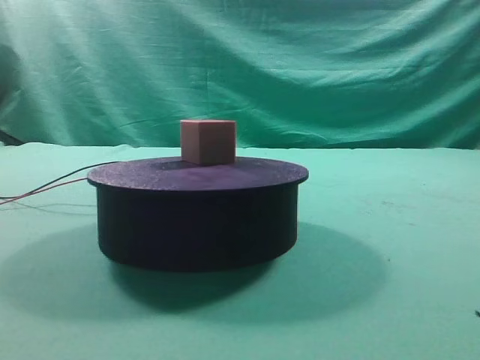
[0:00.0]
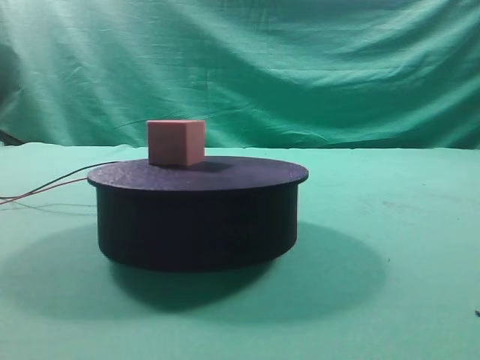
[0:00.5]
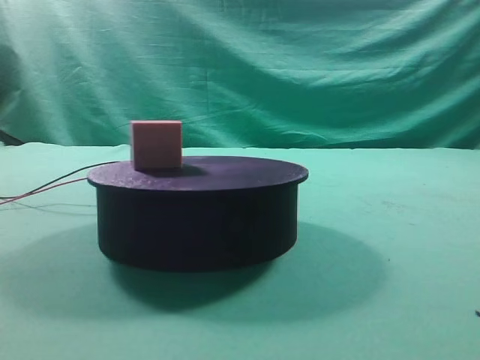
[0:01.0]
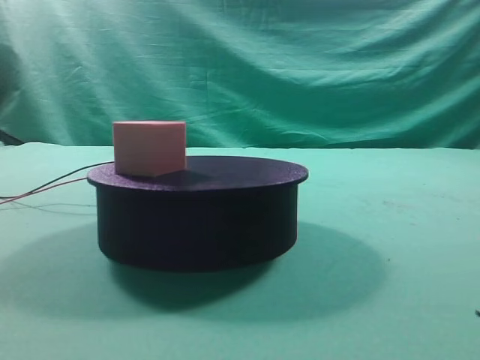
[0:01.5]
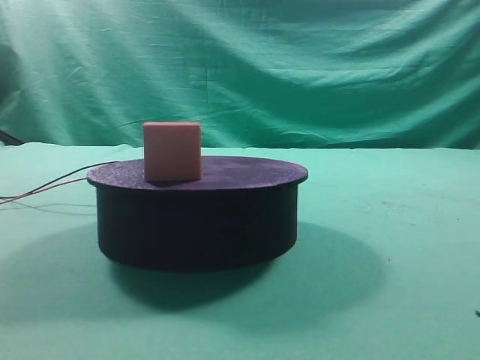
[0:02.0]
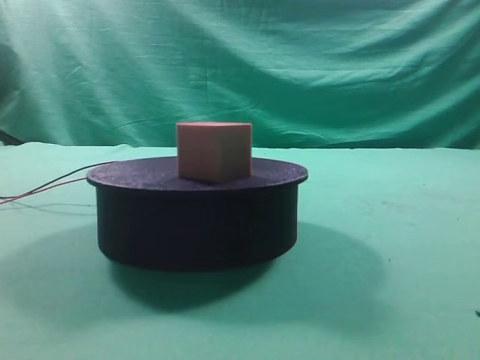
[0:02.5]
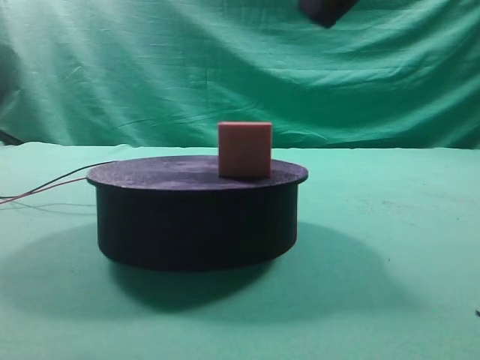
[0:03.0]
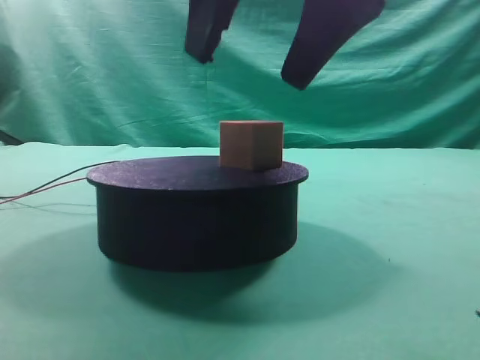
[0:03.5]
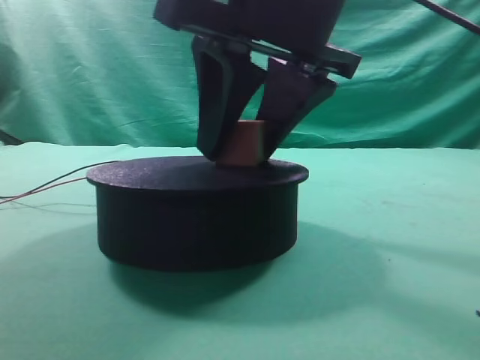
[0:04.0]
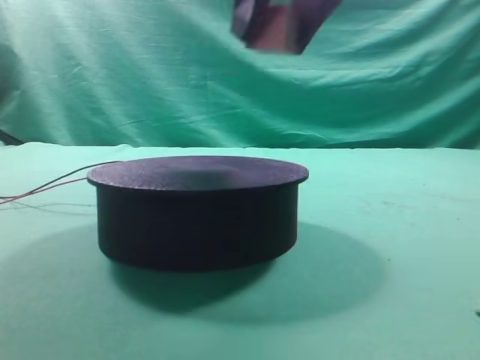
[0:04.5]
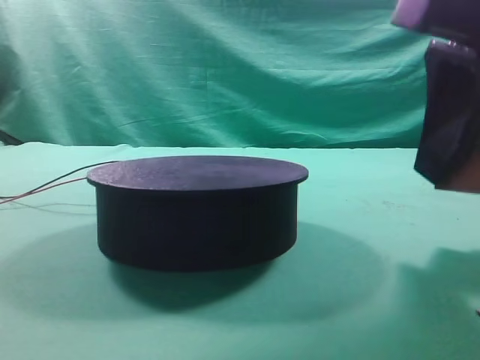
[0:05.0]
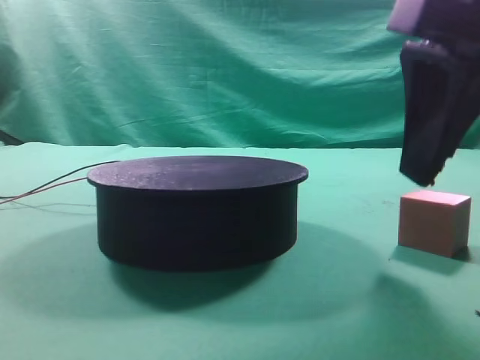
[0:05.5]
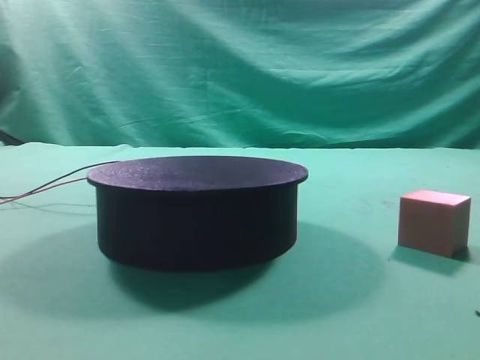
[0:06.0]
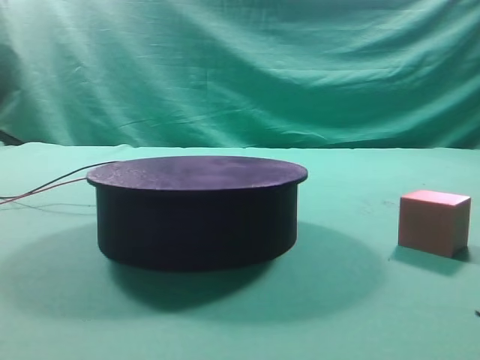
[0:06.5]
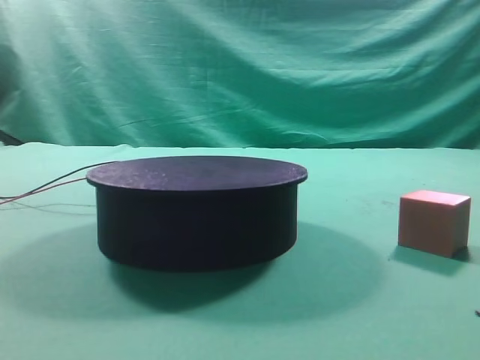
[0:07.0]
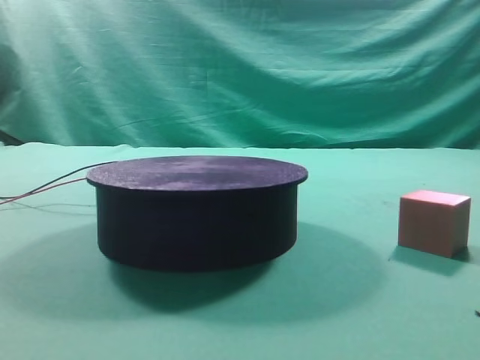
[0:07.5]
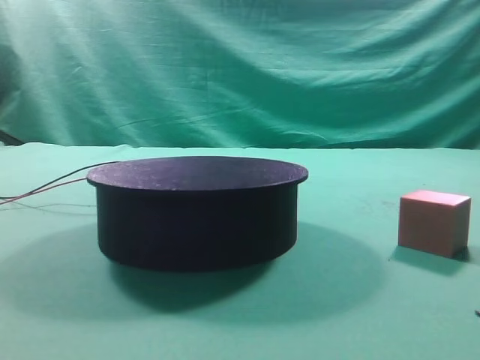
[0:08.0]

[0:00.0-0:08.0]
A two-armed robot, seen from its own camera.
Task of the whole recording: grasp the rotating cube-shaped block on the turntable and place it on the table.
Step, 0:00.0 to 0:04.0: Grasp the rotating cube-shaped block on the turntable.
Step, 0:04.5 to 0:05.5: Place the cube on the desk.

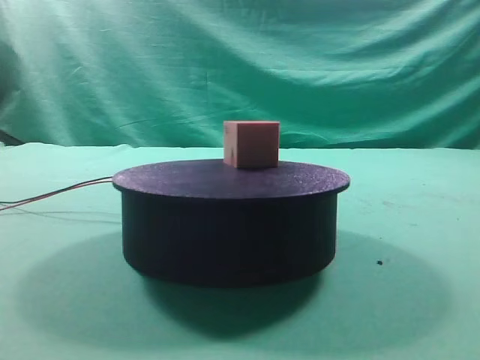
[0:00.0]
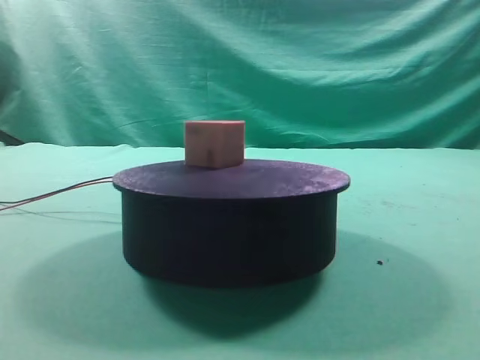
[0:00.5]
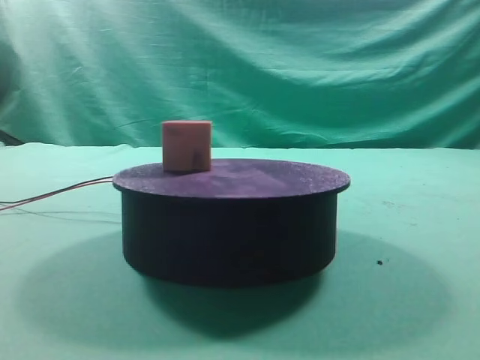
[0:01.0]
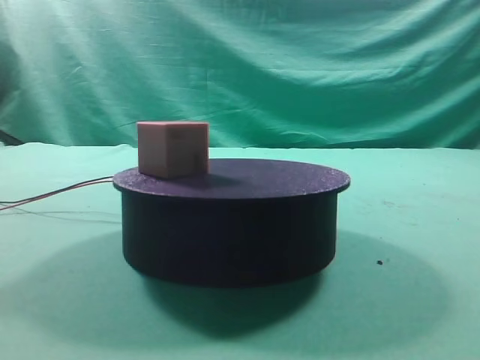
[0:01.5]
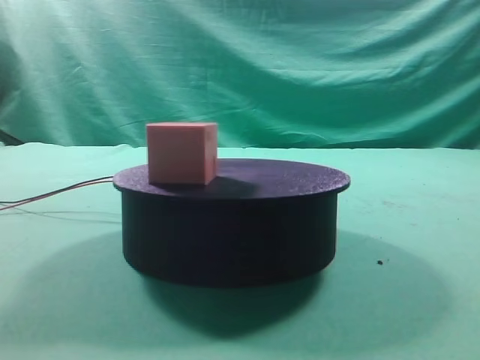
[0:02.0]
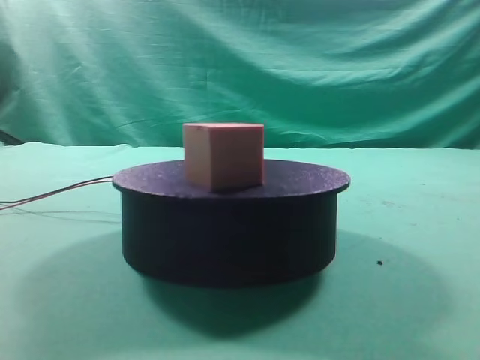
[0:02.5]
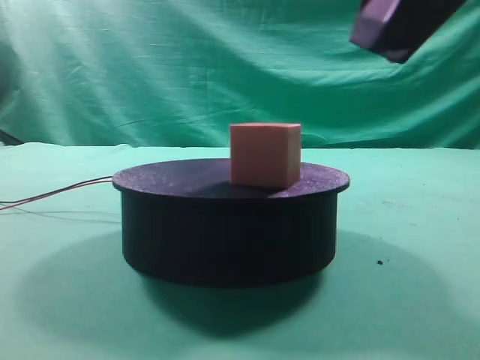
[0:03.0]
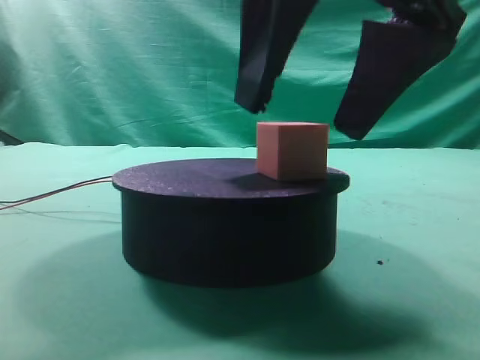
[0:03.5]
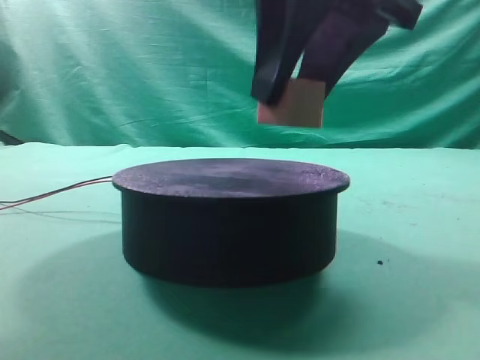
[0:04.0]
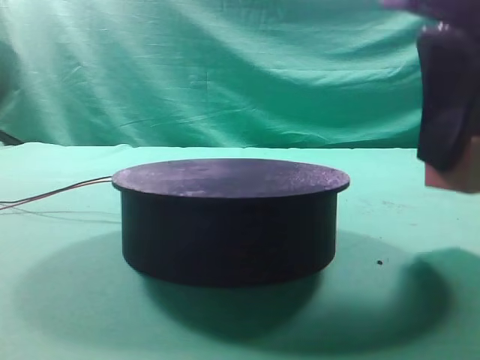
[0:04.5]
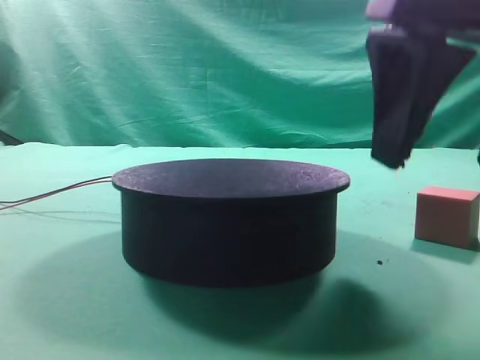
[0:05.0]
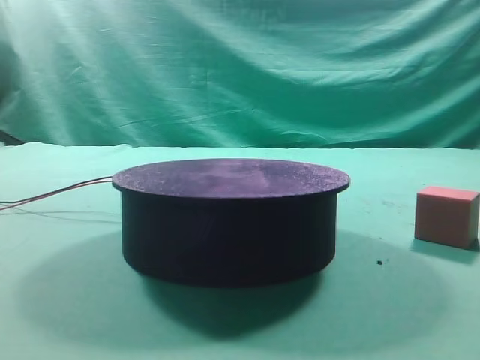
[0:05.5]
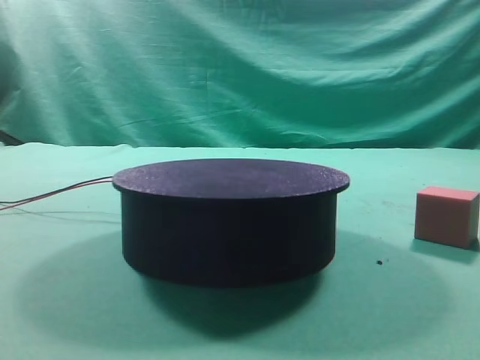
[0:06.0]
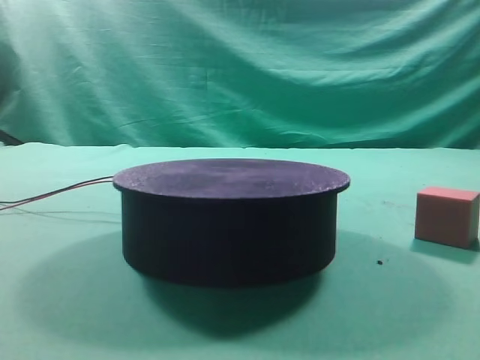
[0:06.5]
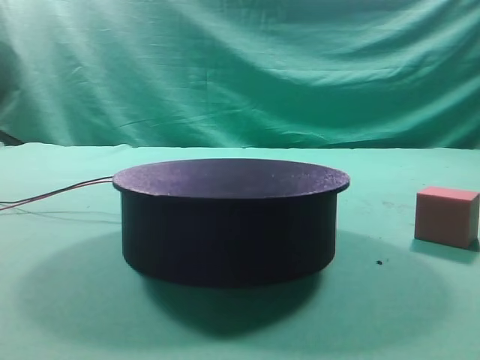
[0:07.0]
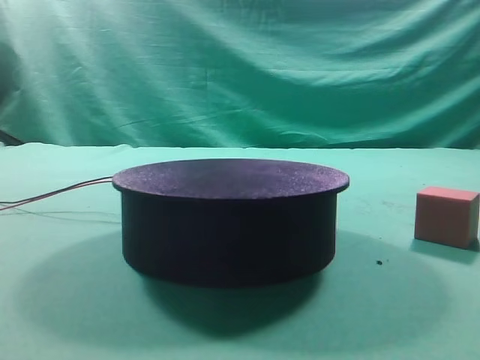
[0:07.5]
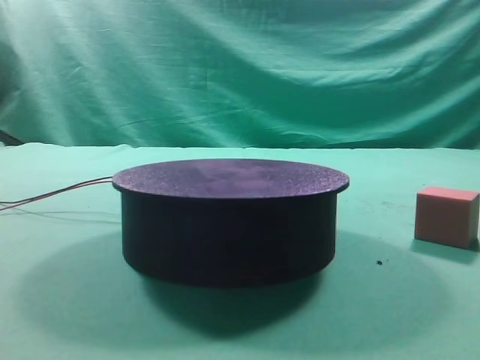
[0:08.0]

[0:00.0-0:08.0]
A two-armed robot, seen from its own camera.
Task of the whole recording: grasp the rotating cube-shaped block on the turntable and place it on the table.
Step, 0:00.0 to 0:04.0: Grasp the rotating cube-shaped block on the turntable.
Step, 0:04.5 to 0:05.0: Place the cube on the desk.

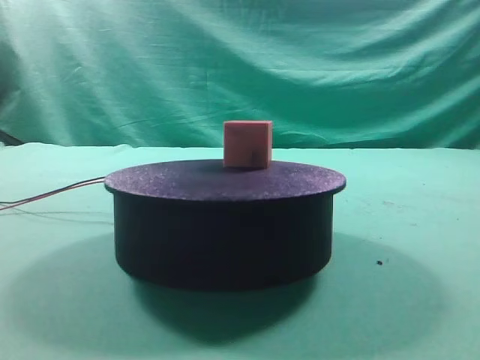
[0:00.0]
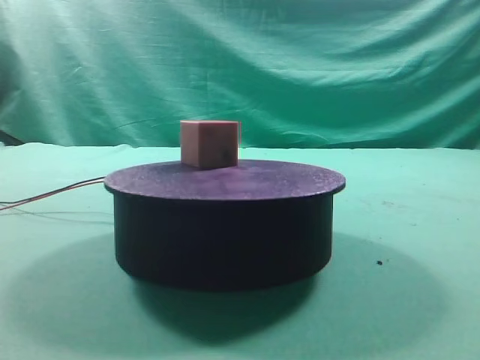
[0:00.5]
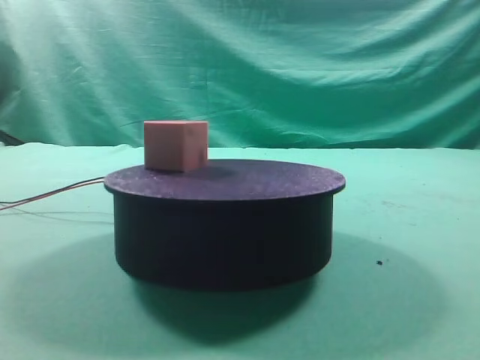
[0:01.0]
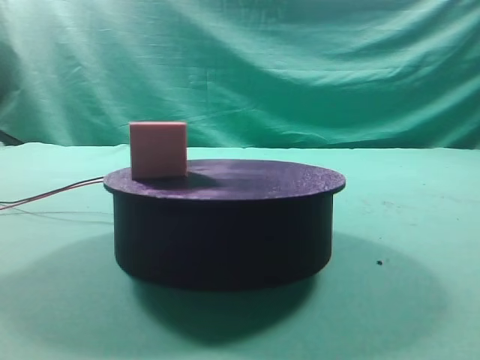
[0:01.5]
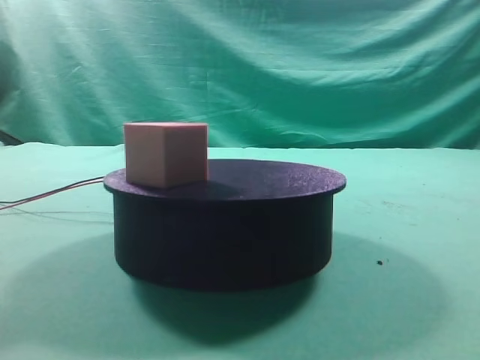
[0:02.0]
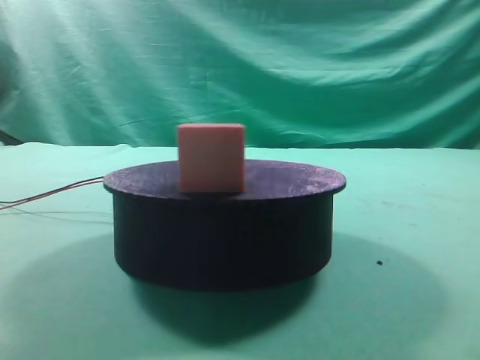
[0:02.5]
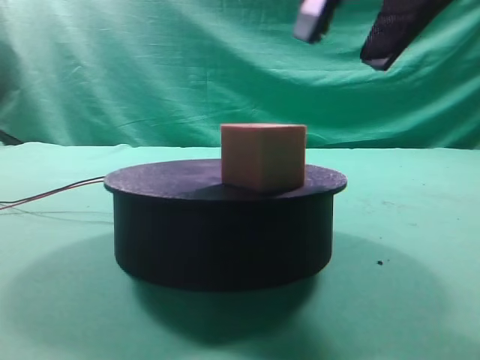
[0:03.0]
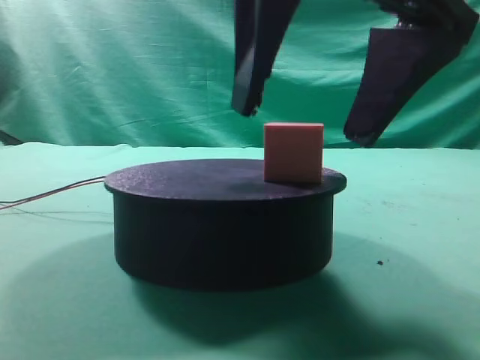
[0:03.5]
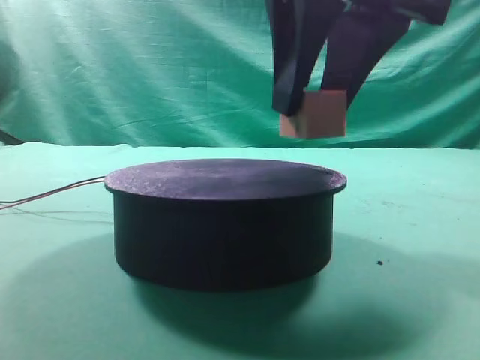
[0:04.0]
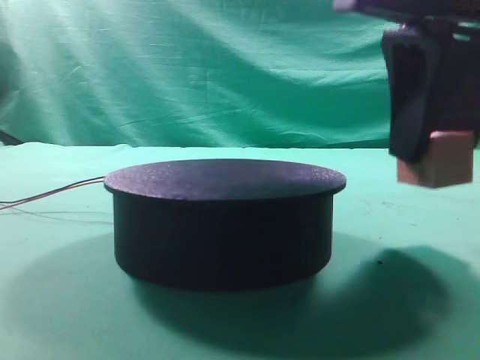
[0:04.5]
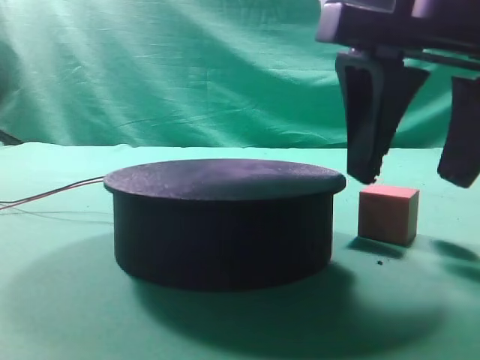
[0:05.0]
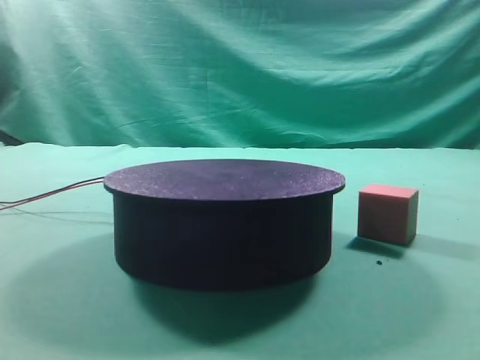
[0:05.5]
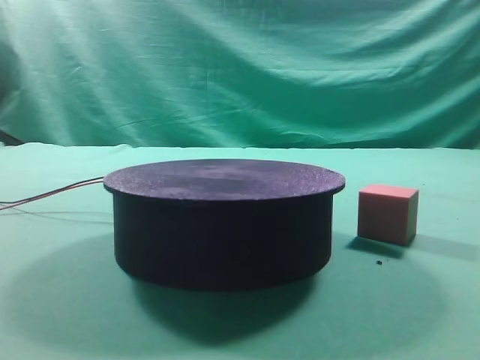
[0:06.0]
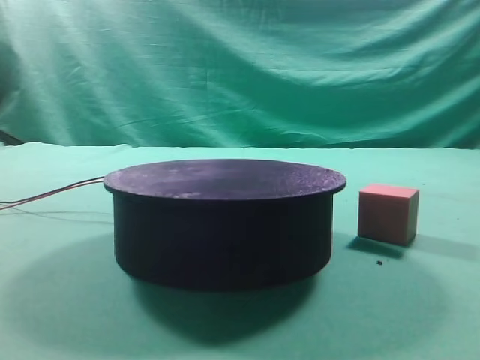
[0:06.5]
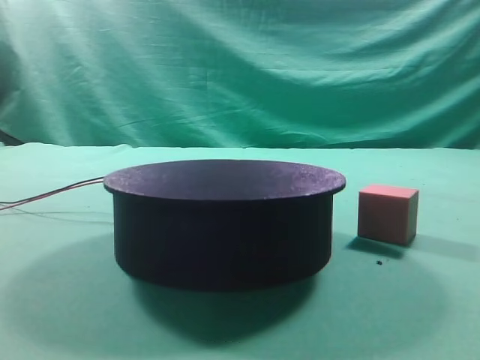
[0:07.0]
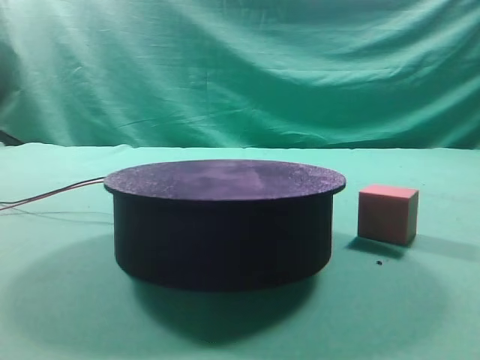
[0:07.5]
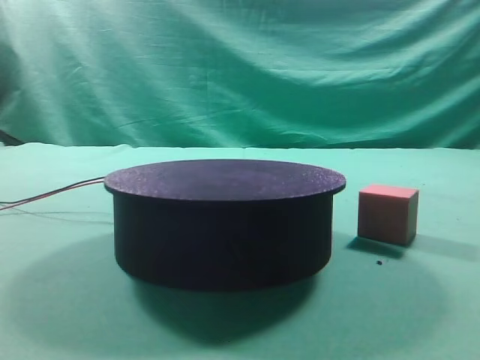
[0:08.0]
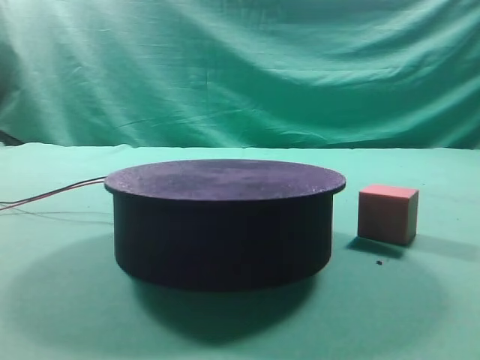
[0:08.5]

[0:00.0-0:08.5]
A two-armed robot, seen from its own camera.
Task of the whole recording: grasp the rotating cube-shaped block on the turntable and place it on the table.
Step, 0:00.0 to 0:04.0: Grasp the rotating cube-shaped block on the turntable.
Step, 0:04.5 to 0:05.0: Place the cube on the desk.
